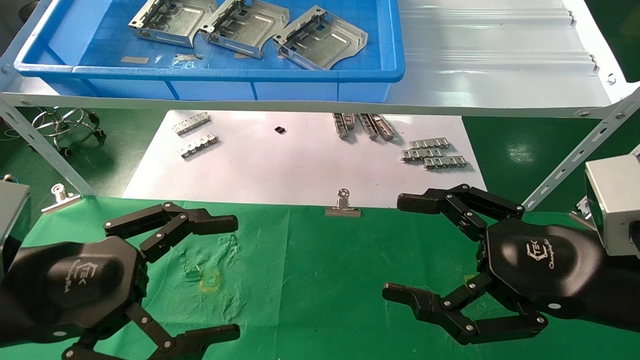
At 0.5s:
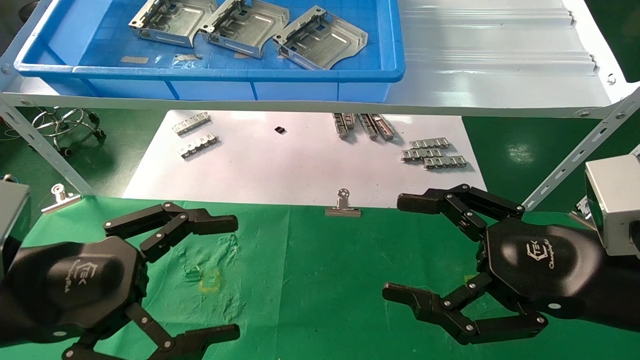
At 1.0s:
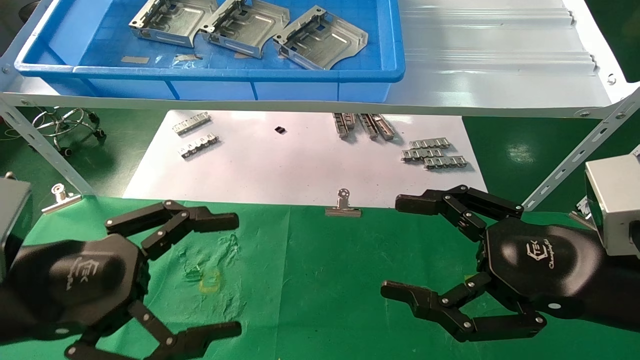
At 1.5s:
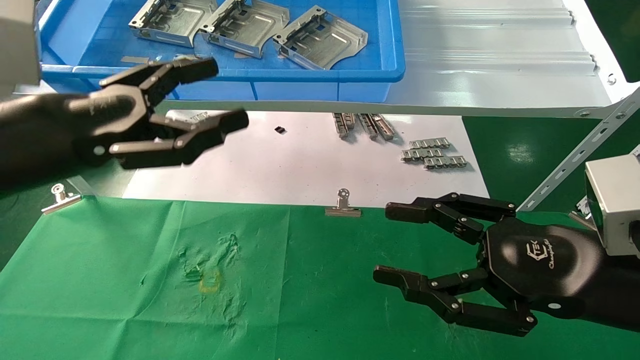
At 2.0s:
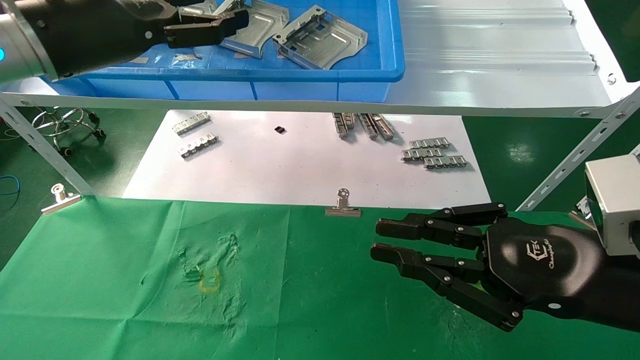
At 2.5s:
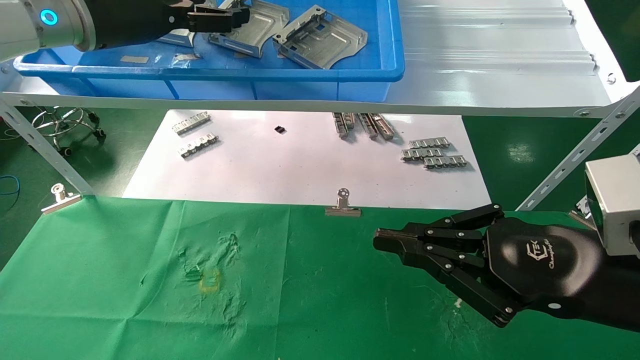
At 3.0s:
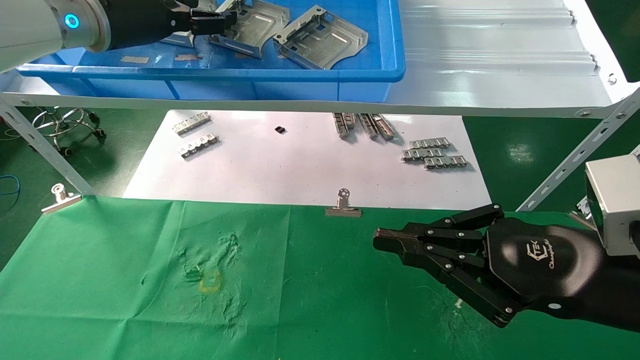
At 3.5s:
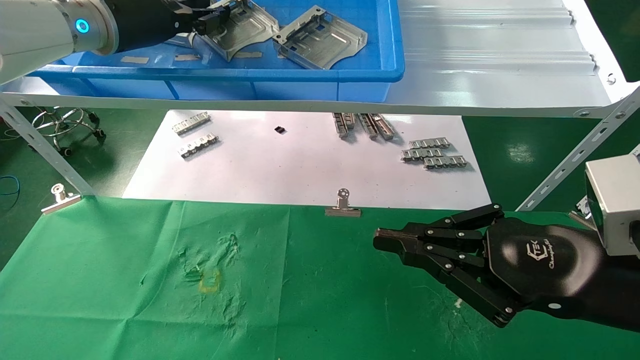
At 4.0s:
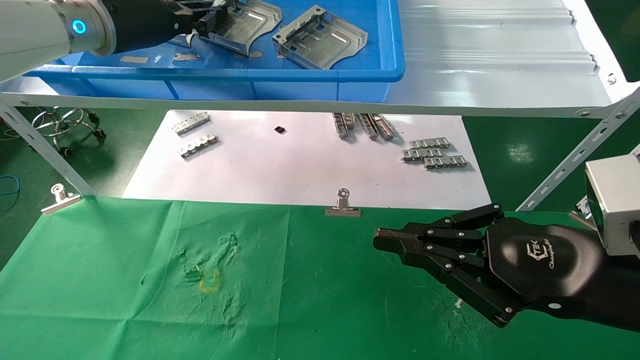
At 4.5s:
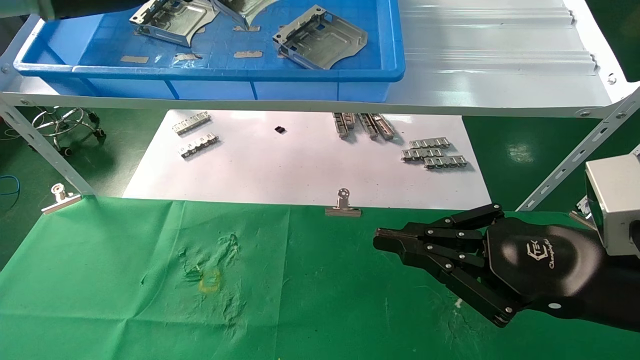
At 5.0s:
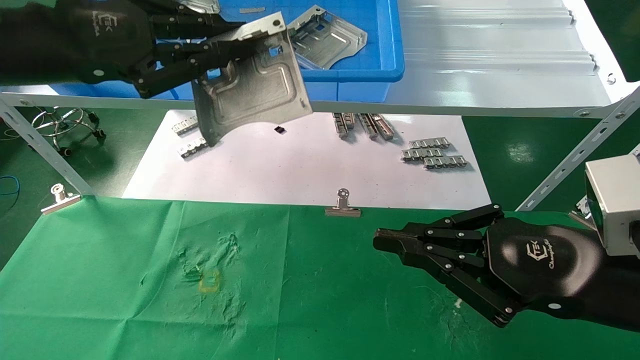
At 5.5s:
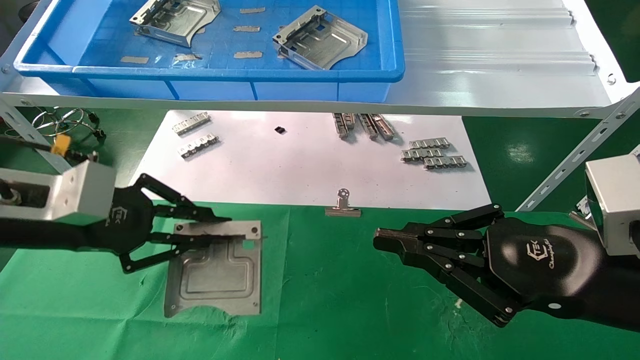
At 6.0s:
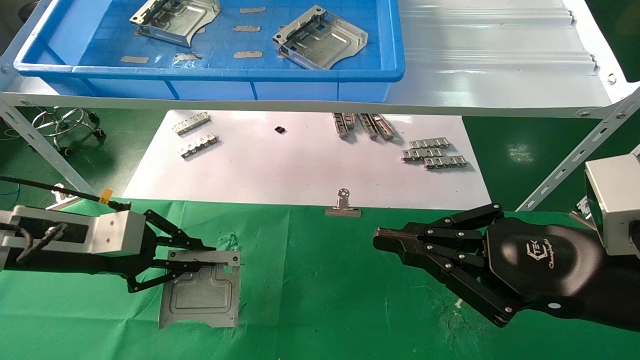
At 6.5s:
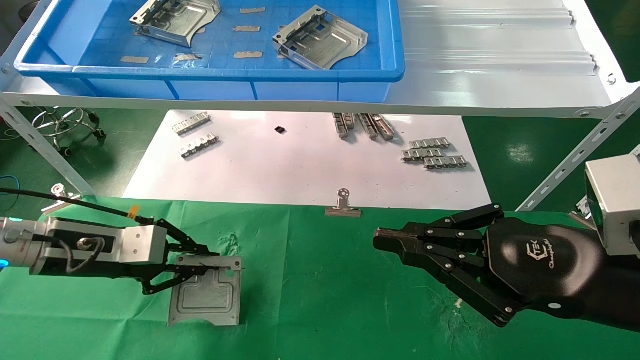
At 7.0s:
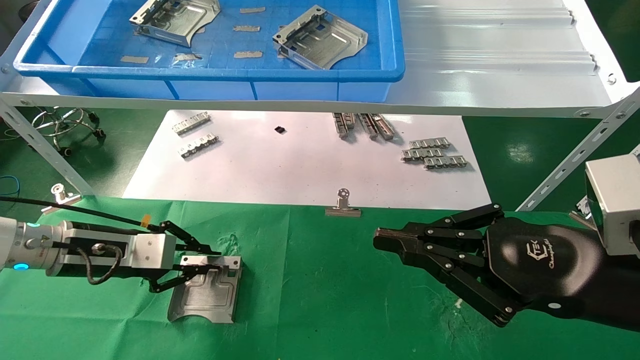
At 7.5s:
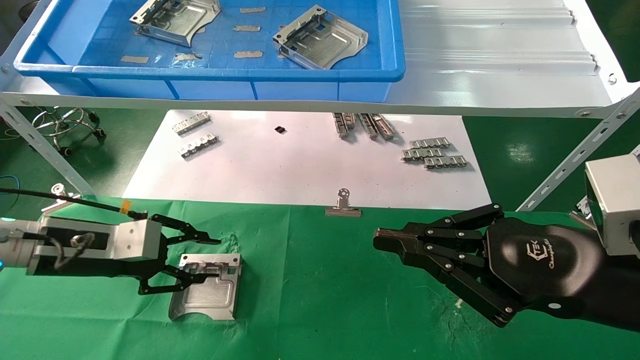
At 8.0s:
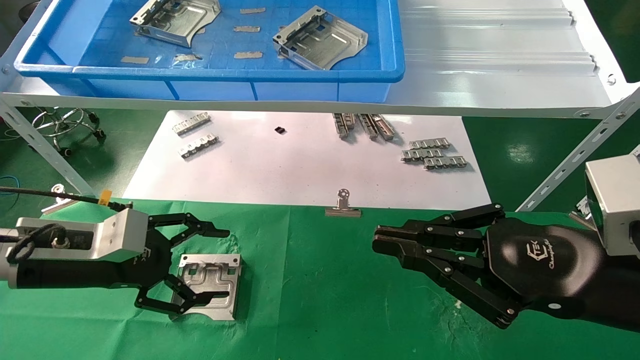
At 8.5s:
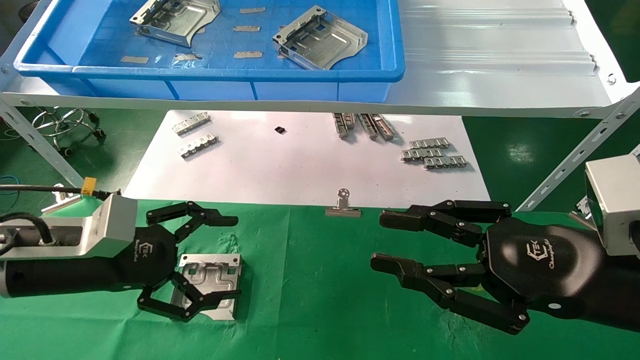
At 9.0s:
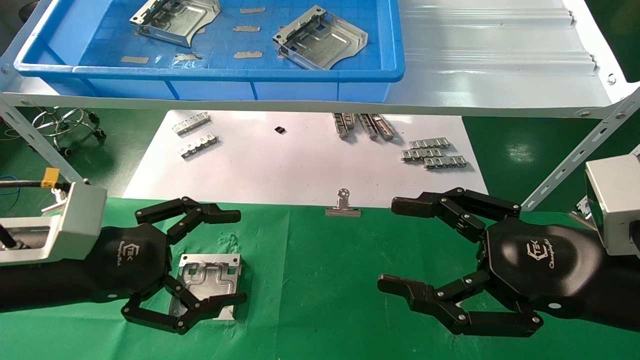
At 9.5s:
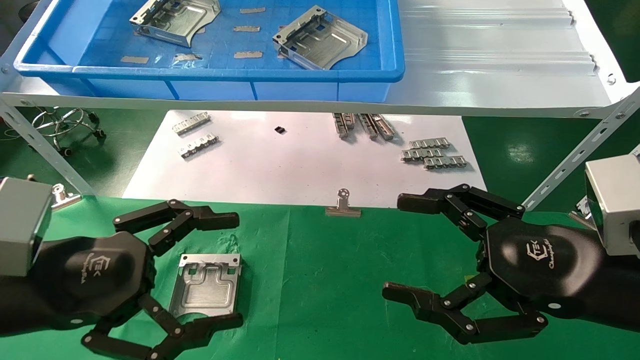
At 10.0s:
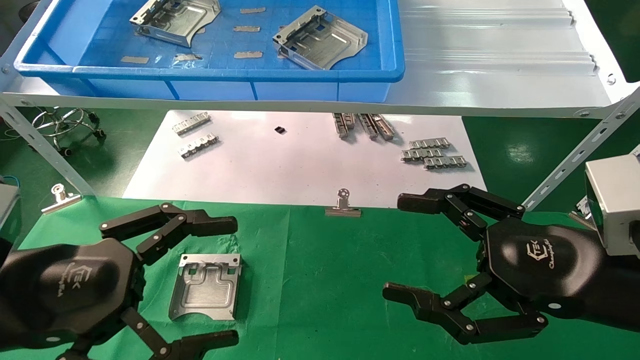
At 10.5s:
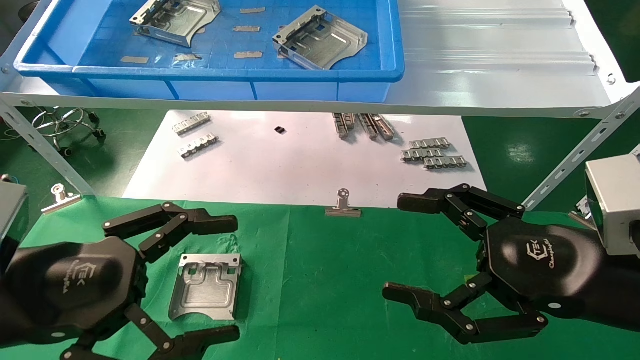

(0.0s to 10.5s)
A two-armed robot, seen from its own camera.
Task of the whole recording: use the mechanical arm to pick up the parts and place them on the table.
Step, 1.5s - 3.5s: Pick up the hard drive bracket from the feeding area.
Step, 4.0s - 7.0s: Place the hard drive bracket into the box.
0.0s - 2.0s: The left gripper is displaced upward and forward by approximately 25 cm, while the right gripper closes its fingers.
2.0s - 4.0s: The left gripper goes about 5 cm forward, and closes its fingers.
4.0s - 6.5s: The left gripper heads downward, covering roughly 25 cm.
6.5s - 8.5s: The left gripper moves backward, approximately 5 cm, and opens its fingers.
8.5s - 10.5s: The left gripper shifts roughly 10 cm backward; the right gripper opens.

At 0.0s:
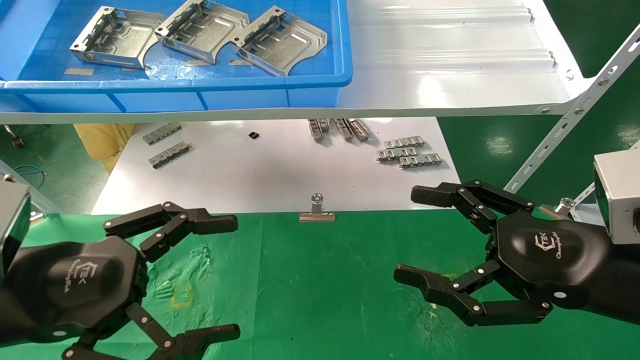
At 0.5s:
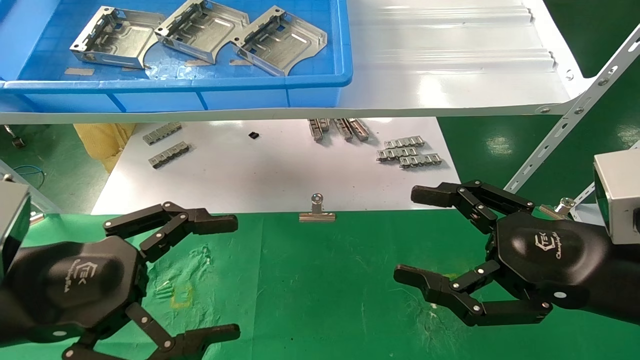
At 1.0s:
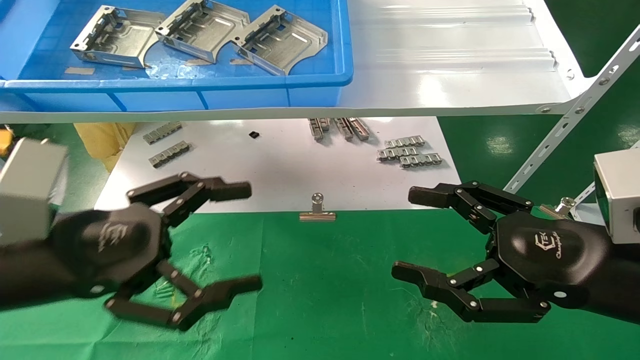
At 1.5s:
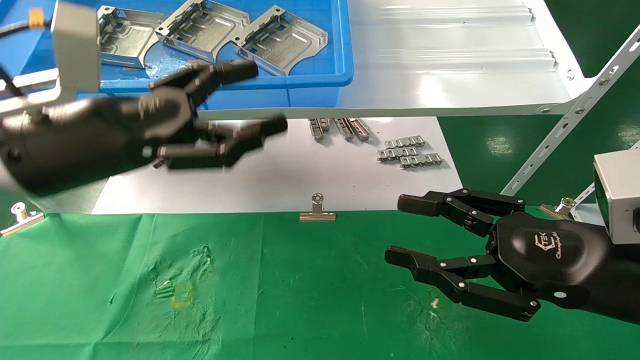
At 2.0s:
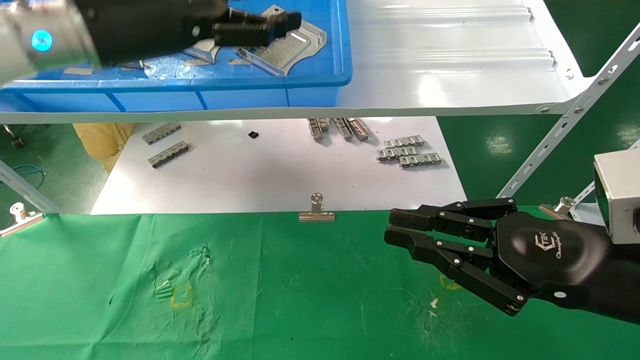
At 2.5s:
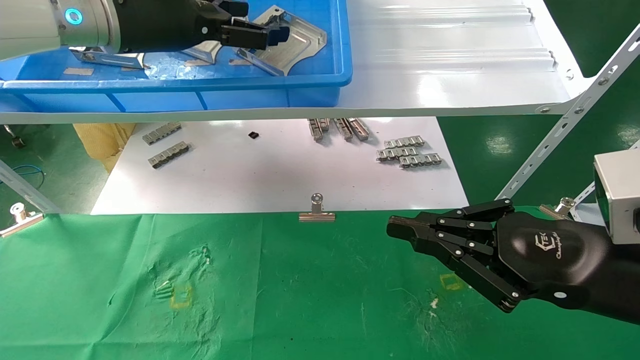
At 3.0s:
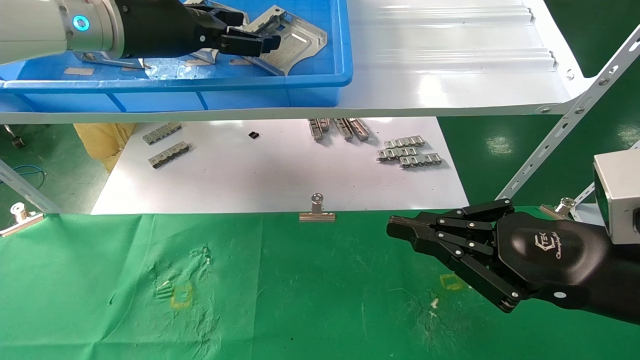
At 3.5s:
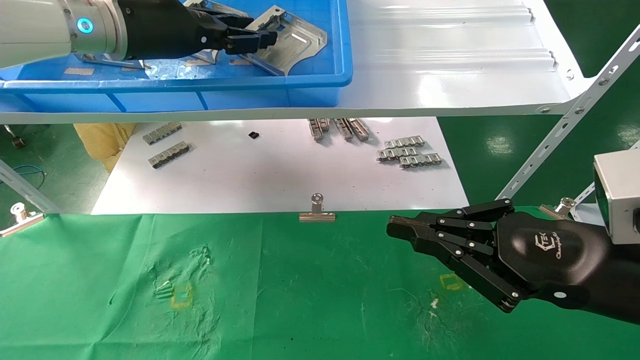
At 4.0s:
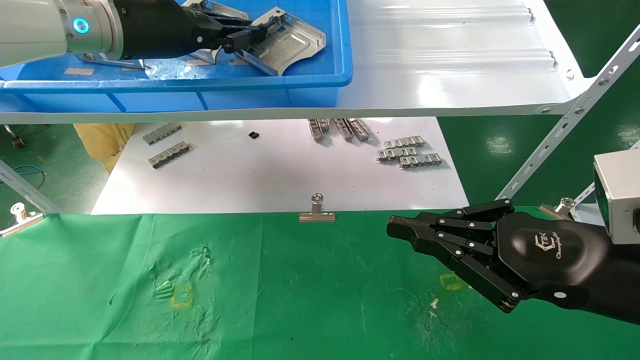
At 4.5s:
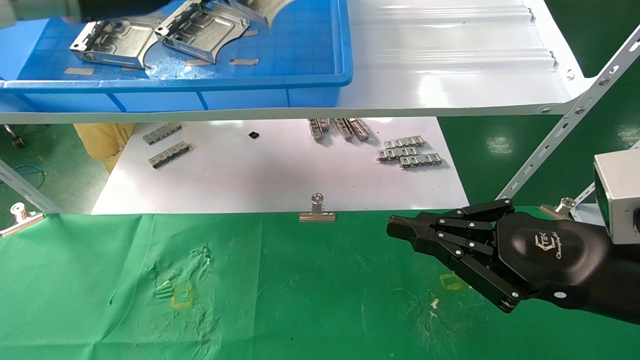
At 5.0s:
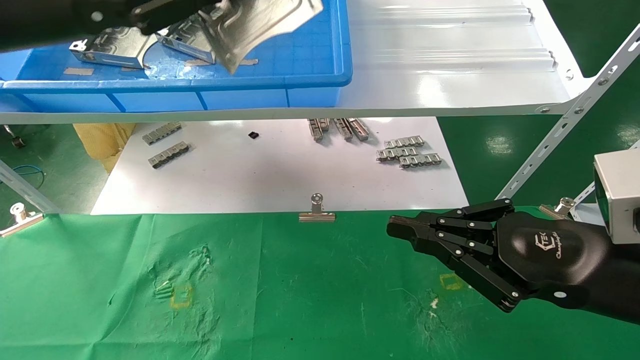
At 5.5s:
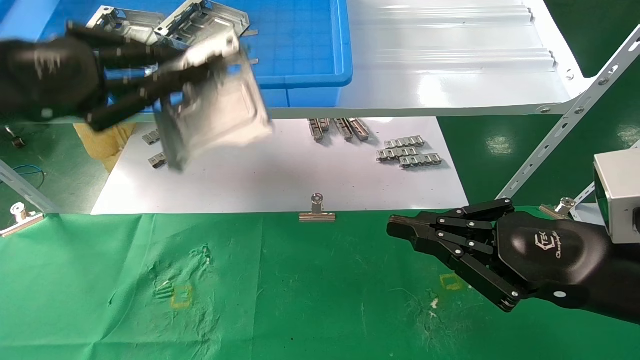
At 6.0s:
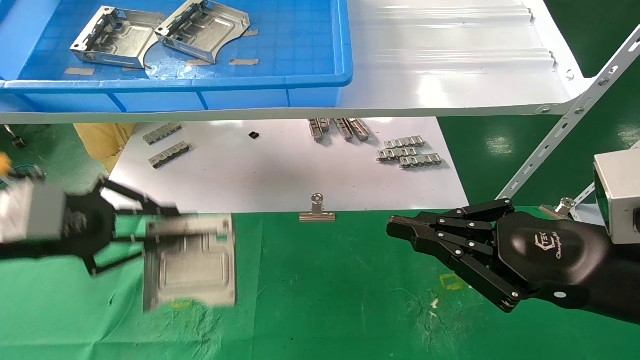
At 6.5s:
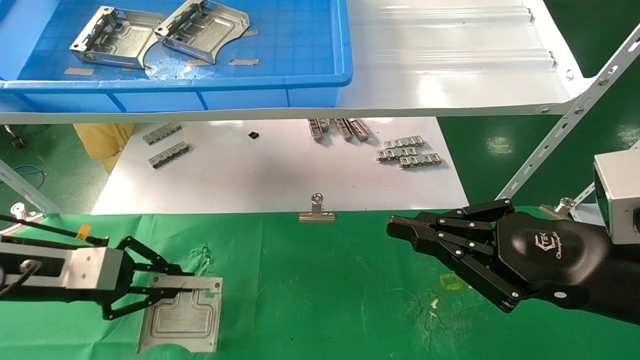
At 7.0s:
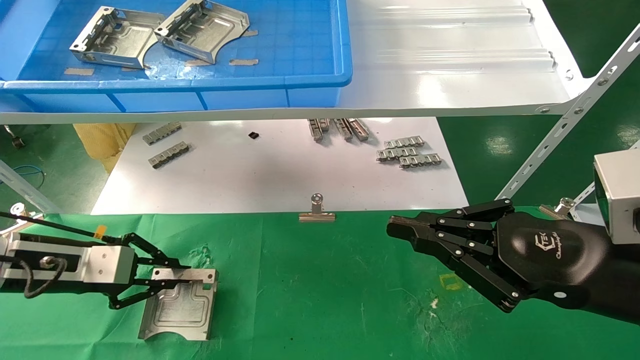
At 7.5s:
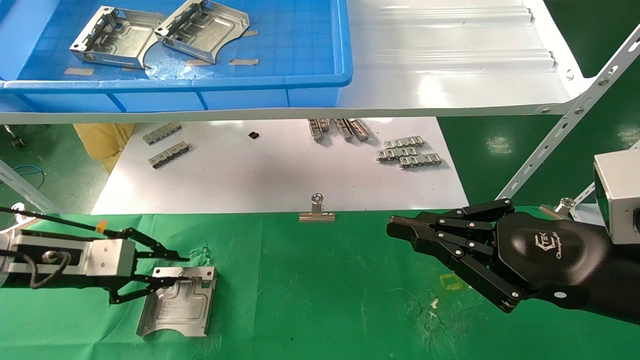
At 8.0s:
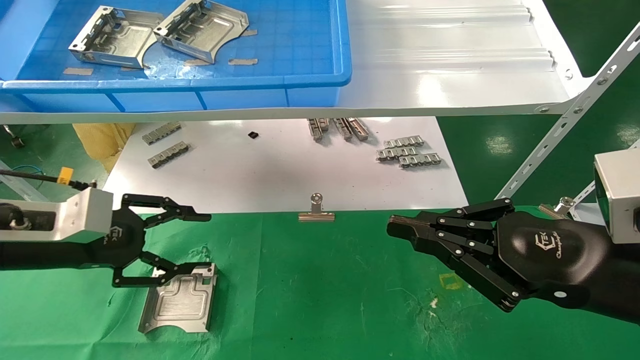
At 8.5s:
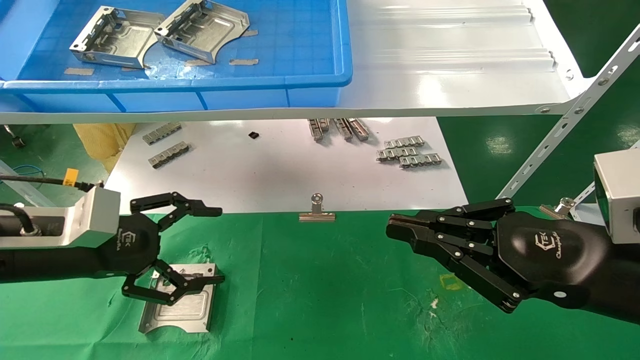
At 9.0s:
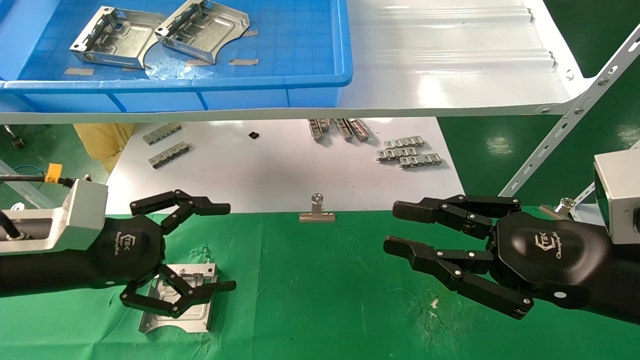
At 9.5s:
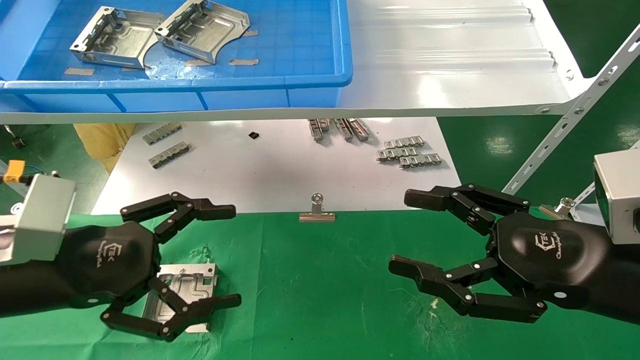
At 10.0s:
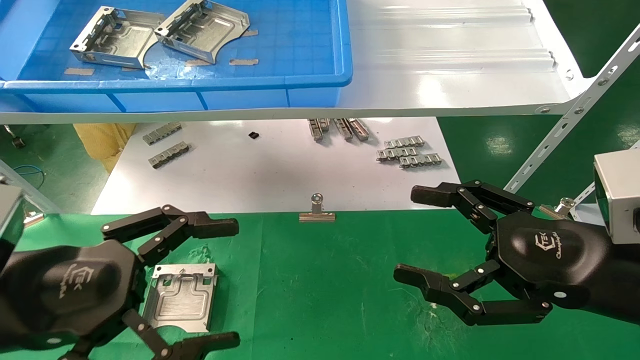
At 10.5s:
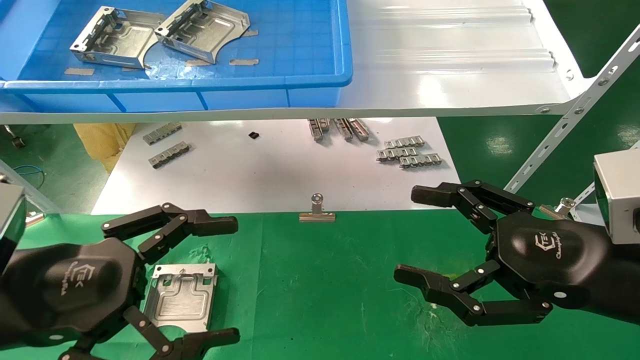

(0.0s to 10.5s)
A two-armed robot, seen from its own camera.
Task of the whole recording: use the mechanical arm to pick up the parts and place them on the table.
Step, 1.5s - 3.5s: Pick up the hard drive bracket from the feeding area.
Step, 4.0s - 7.5s: Place the hard drive bracket into the box.
0.0s - 2.0s: The left gripper moves upward and forward, about 25 cm. The right gripper closes its fingers.
2.0s - 4.0s: The left gripper shifts by some 5 cm, and closes up.
4.0s - 6.5s: The left gripper moves downward and to the left, approximately 30 cm.
6.5s - 8.5s: The left gripper opens its fingers.
8.5s - 10.5s: The left gripper moves backward, approximately 10 cm. The right gripper opens its fingers.
